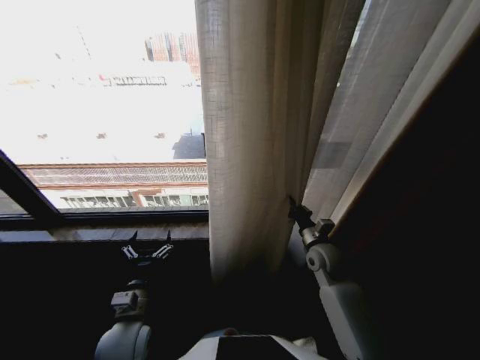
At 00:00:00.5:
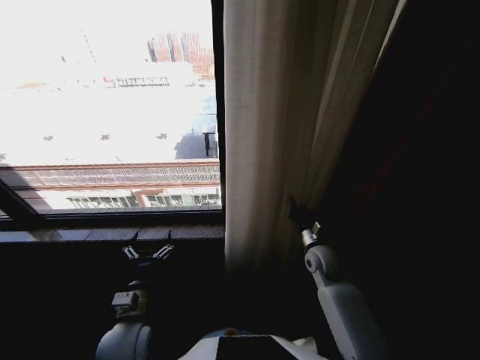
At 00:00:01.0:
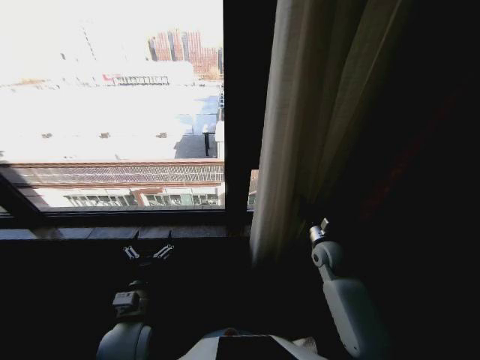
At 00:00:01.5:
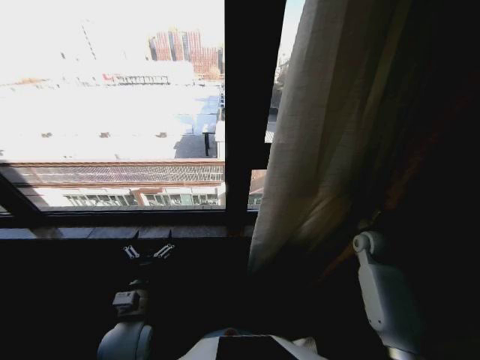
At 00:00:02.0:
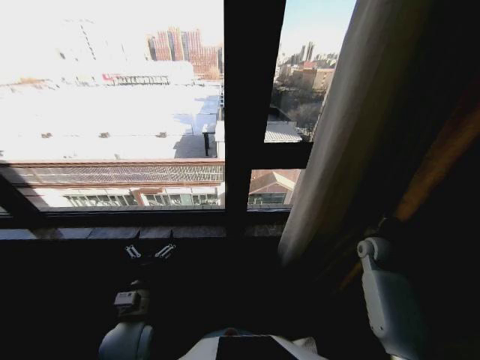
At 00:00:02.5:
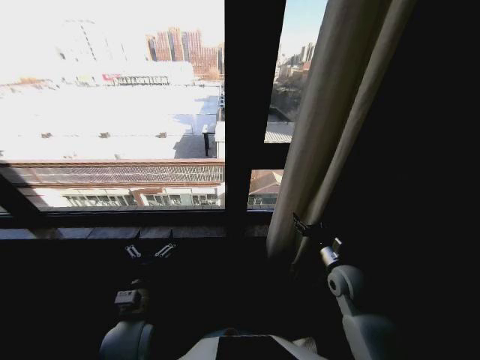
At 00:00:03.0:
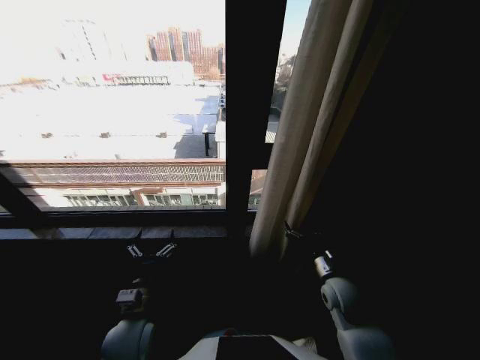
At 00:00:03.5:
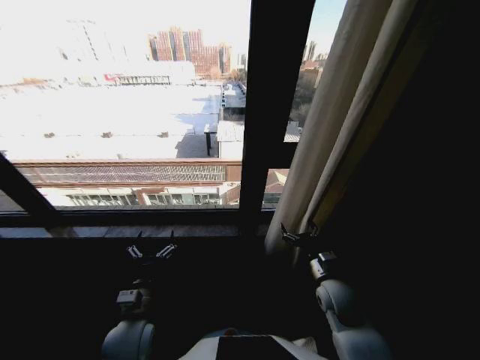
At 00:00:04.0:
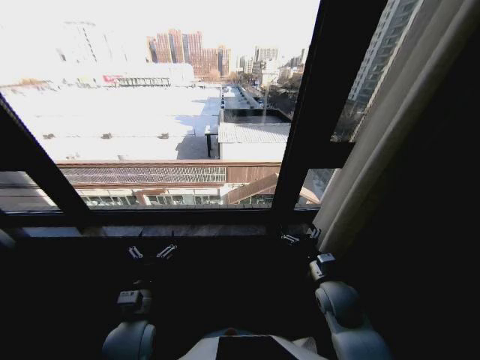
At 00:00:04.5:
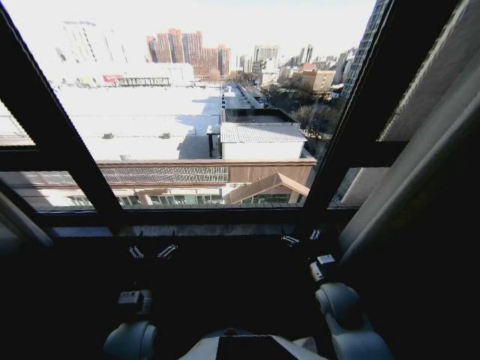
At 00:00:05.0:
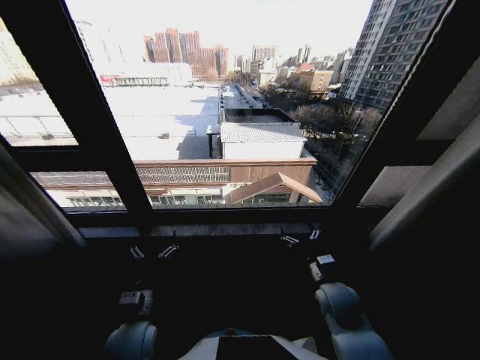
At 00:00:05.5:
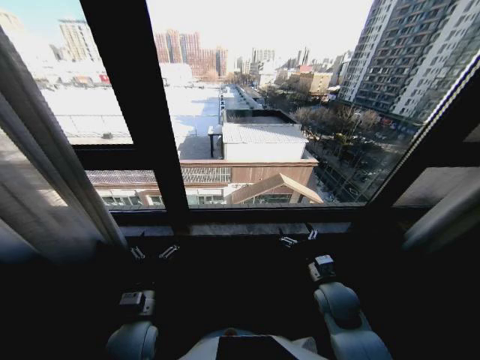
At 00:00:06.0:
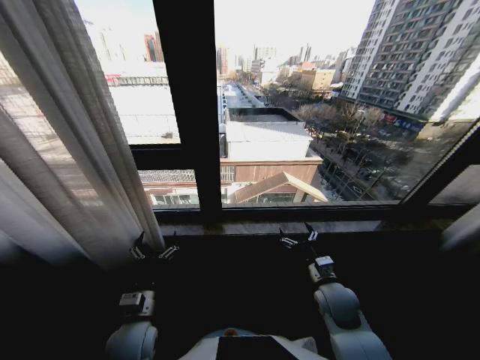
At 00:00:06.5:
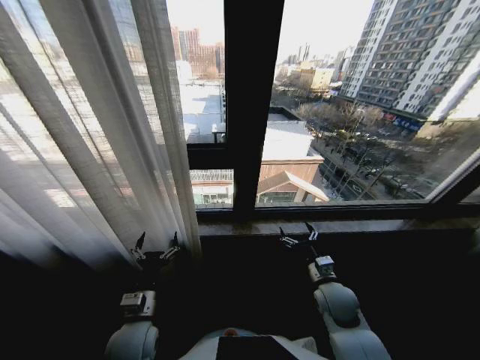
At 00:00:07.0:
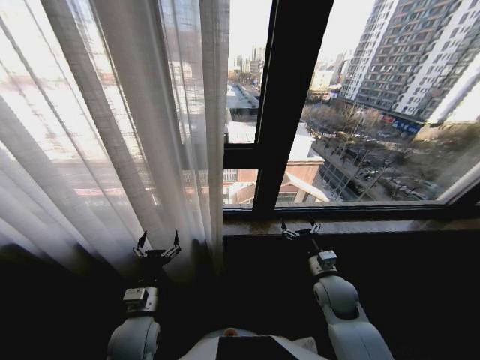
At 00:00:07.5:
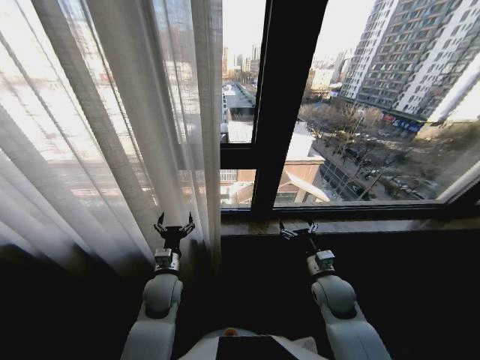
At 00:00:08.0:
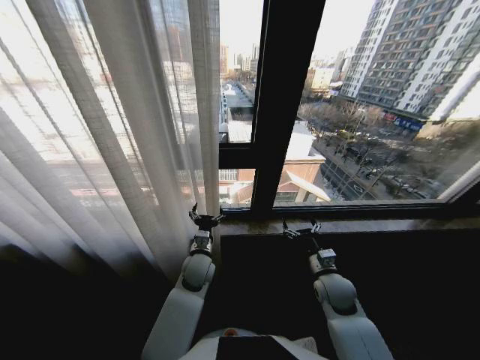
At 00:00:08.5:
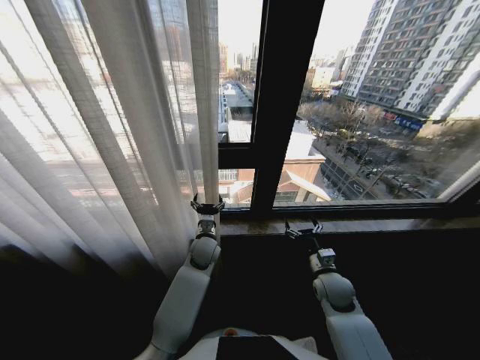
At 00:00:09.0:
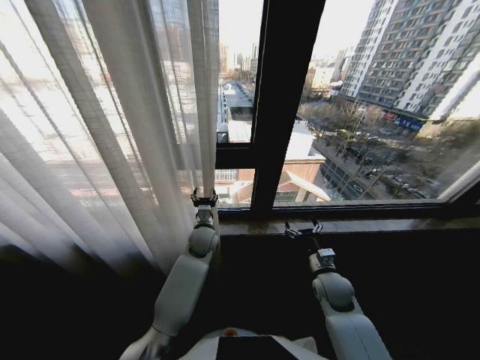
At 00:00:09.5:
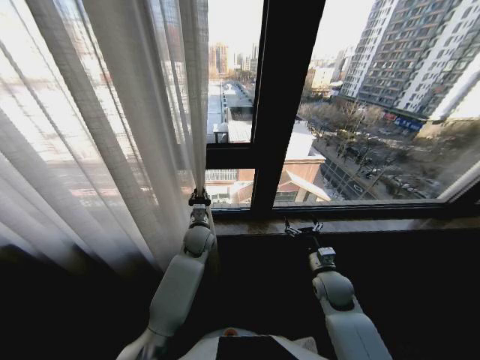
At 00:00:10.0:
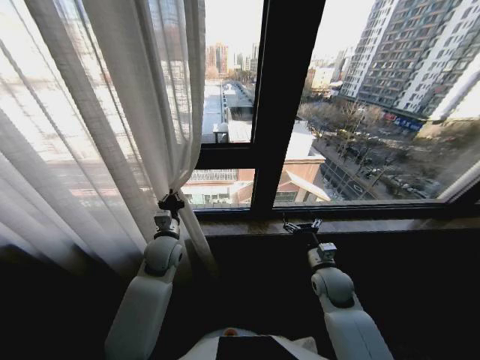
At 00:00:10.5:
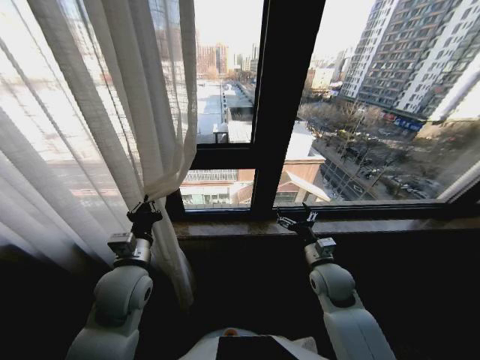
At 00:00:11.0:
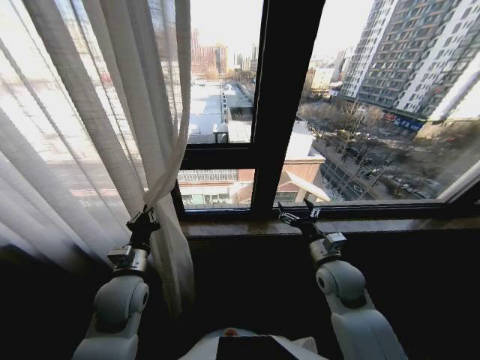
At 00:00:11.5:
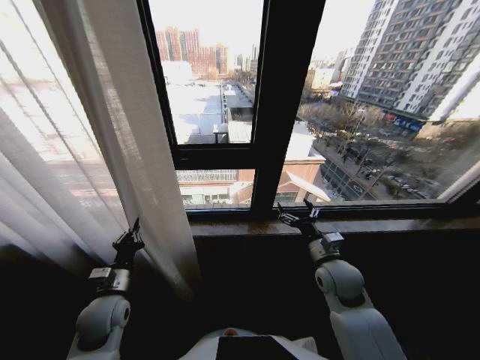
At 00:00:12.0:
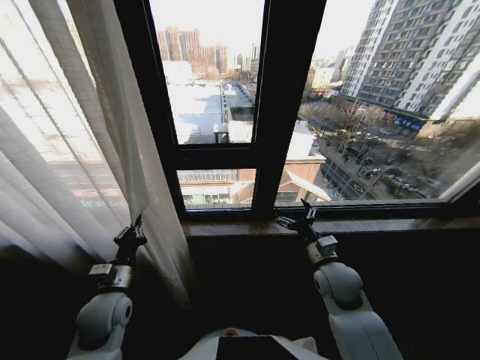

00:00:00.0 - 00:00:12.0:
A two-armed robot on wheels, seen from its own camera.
Task of the whole recording: Open the curtains by pulling them apart, changing their state from closed to fully open.
00:00:00.0 - 00:00:02.0: The right gripper moves to the right, roughly 20 cm.
00:00:02.0 - 00:00:04.0: The right gripper goes some 20 cm to the left and backward, and opens.
00:00:06.0 - 00:00:08.0: The left gripper travels forward and to the right by about 20 cm.
00:00:08.0 - 00:00:10.0: The left gripper heads to the left and upward, covering about 10 cm, and closes up.
00:00:10.0 - 00:00:12.0: The left gripper shifts approximately 20 cm backward and to the left; the right gripper moves upward, some 5 cm.

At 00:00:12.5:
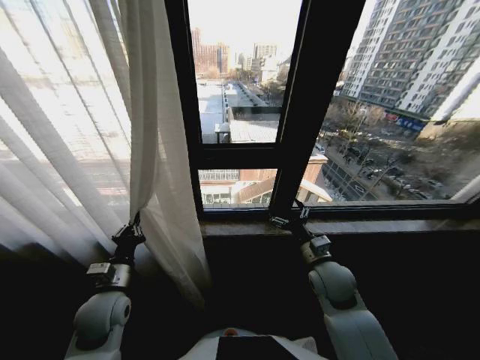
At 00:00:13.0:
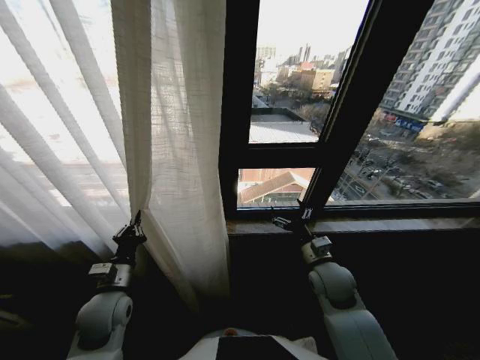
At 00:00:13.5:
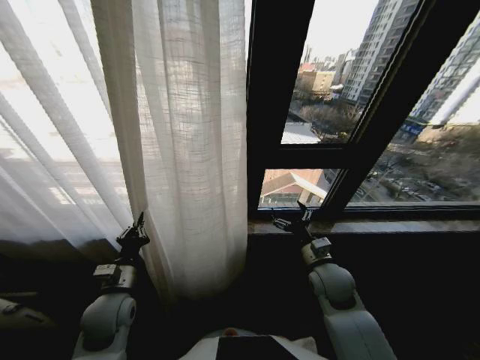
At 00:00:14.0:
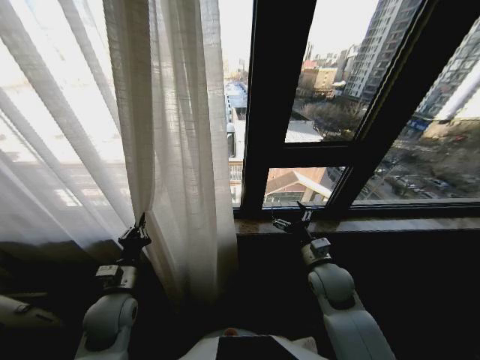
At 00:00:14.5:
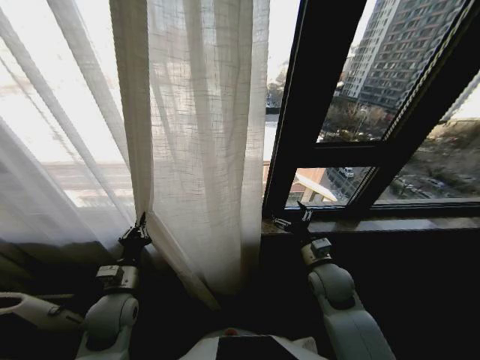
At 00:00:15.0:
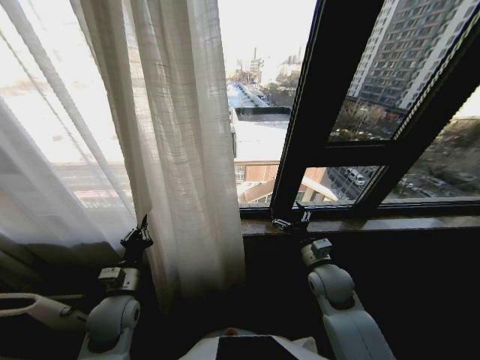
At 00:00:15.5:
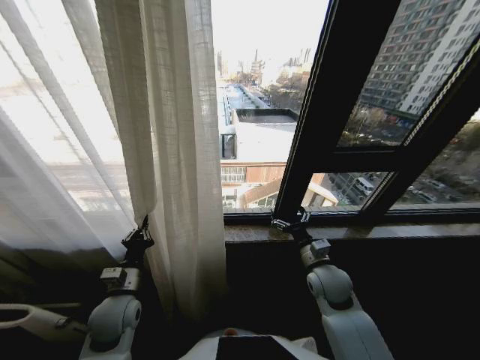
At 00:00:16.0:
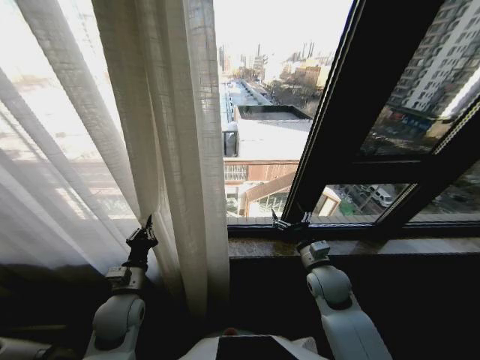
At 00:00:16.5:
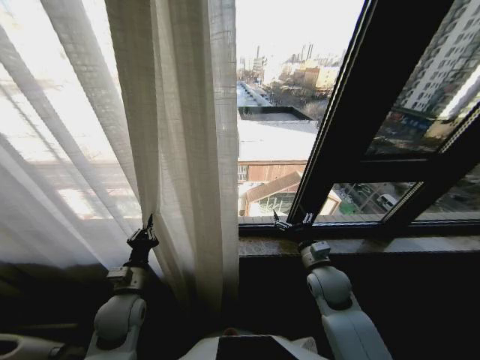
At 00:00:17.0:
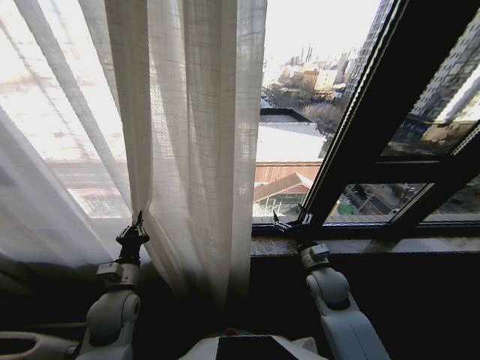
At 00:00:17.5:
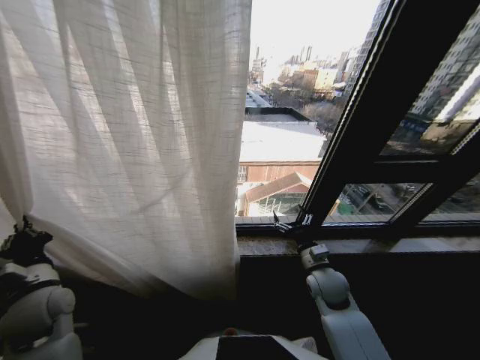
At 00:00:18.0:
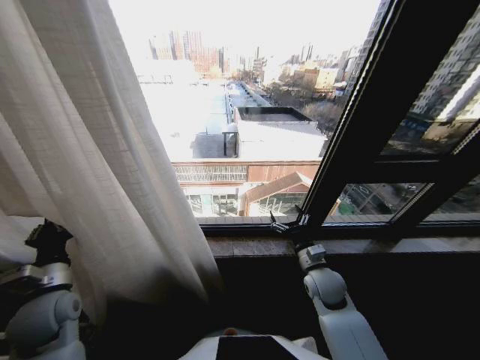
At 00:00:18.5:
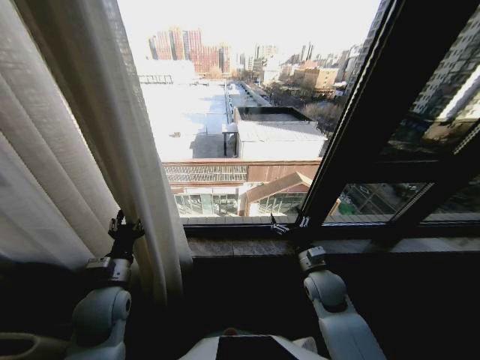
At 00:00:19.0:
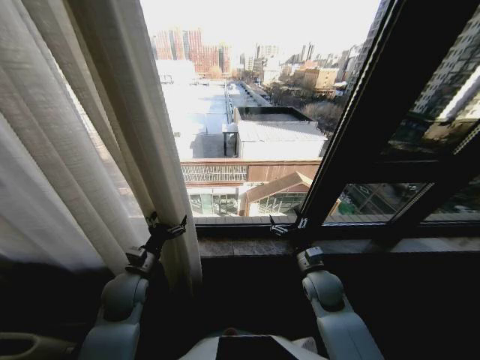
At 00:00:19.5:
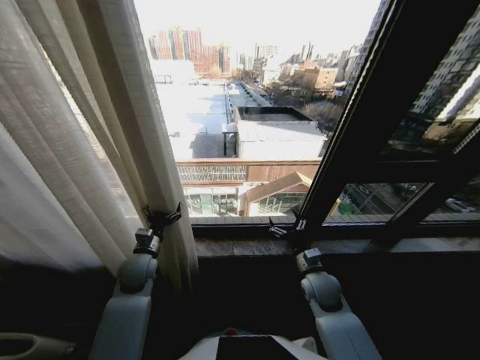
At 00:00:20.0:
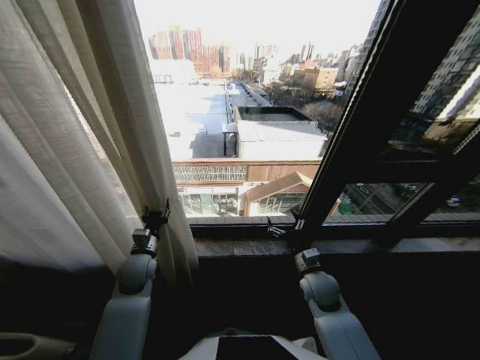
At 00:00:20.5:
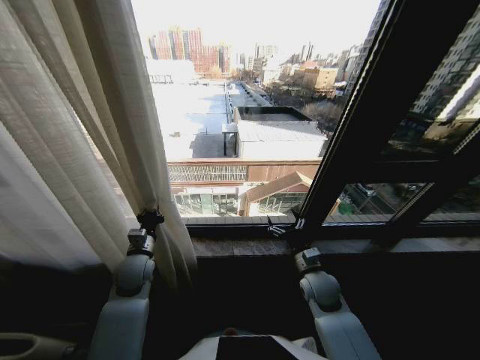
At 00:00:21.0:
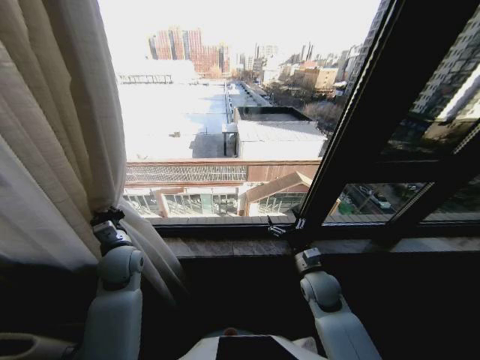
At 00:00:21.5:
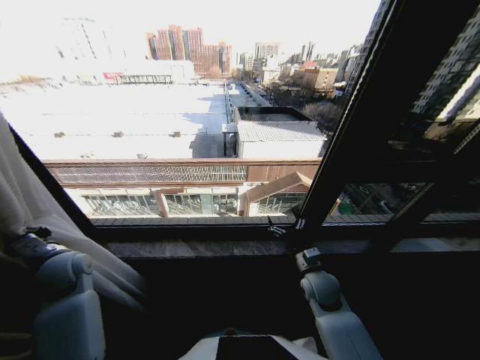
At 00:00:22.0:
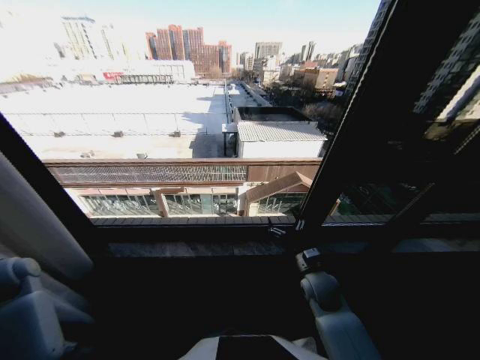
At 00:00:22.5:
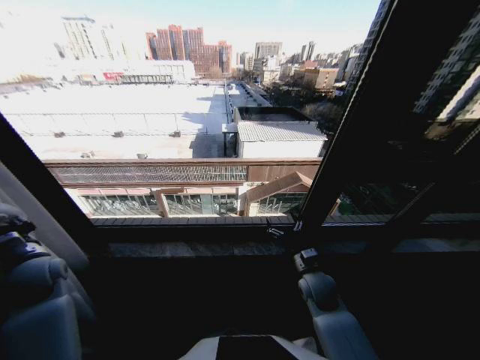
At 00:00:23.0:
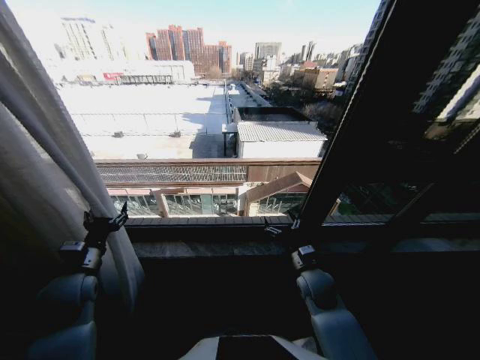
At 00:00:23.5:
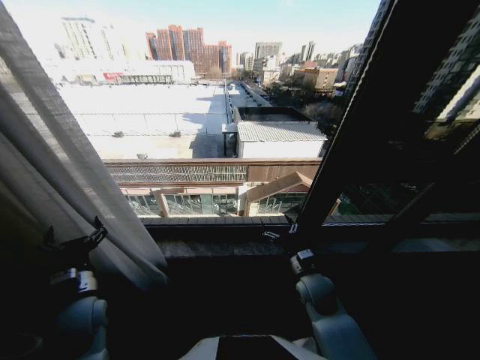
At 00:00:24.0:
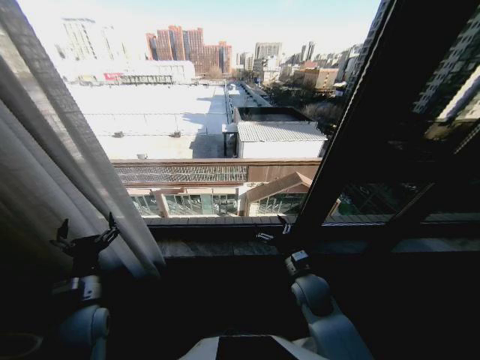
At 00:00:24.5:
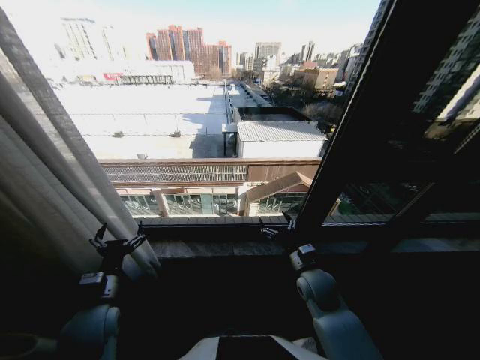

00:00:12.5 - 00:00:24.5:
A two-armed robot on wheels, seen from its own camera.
Task of the whole recording: Open the curtains by pulling them apart, changing their state from closed to fully open.
00:00:16.5 - 00:00:18.5: The left gripper travels to the left and back again, about 15 cm each way, and opens.
00:00:18.5 - 00:00:20.5: The left gripper moves forward, about 10 cm, and closes up.
00:00:20.5 - 00:00:22.5: The left gripper goes about 20 cm to the left.
00:00:22.5 - 00:00:24.5: The left gripper is displaced to the right and backward by approximately 20 cm, and opens up.
